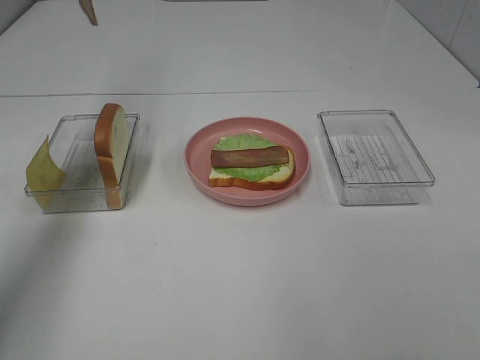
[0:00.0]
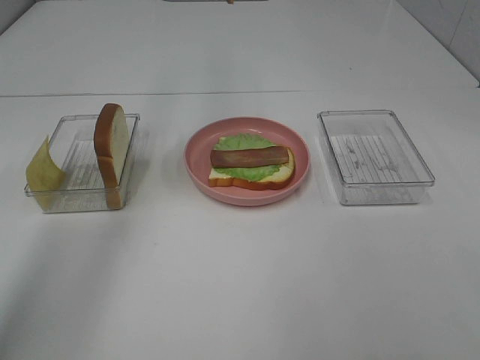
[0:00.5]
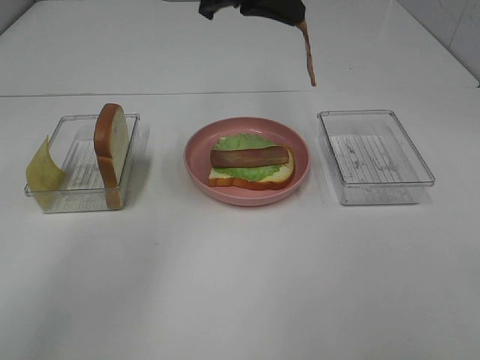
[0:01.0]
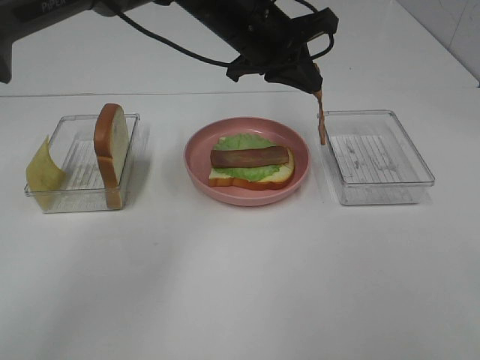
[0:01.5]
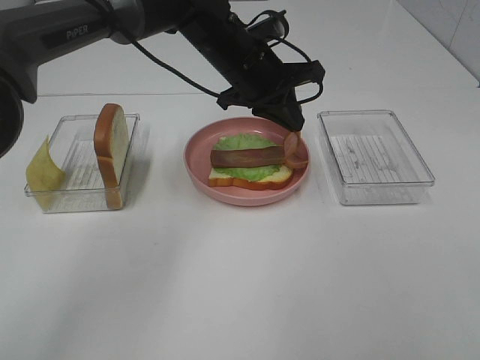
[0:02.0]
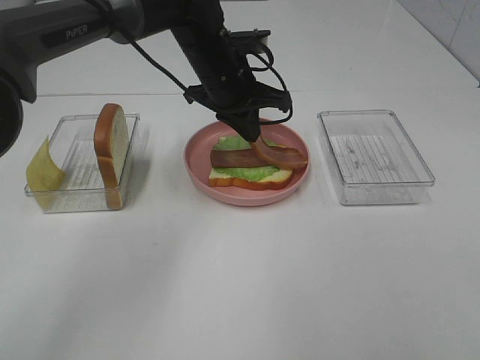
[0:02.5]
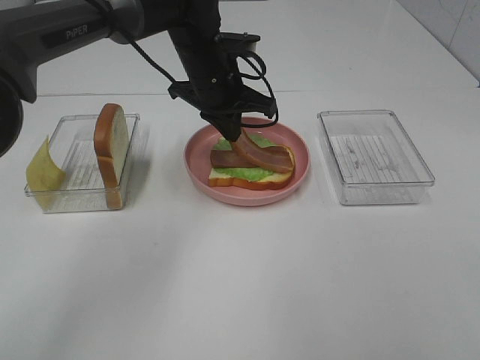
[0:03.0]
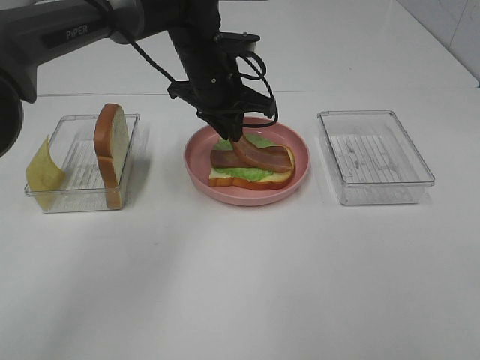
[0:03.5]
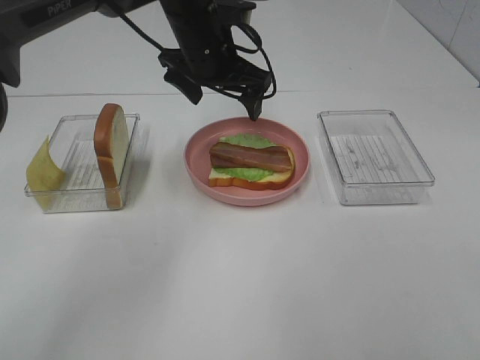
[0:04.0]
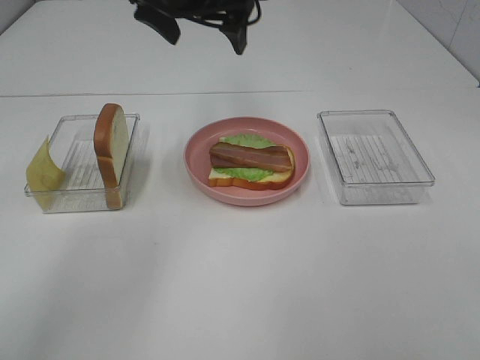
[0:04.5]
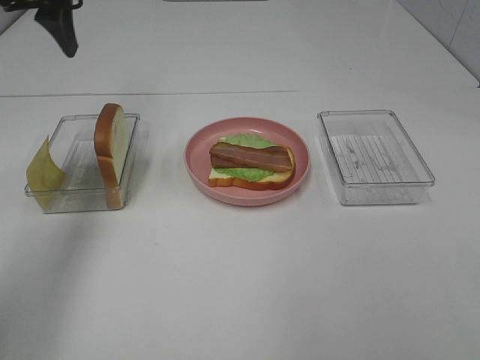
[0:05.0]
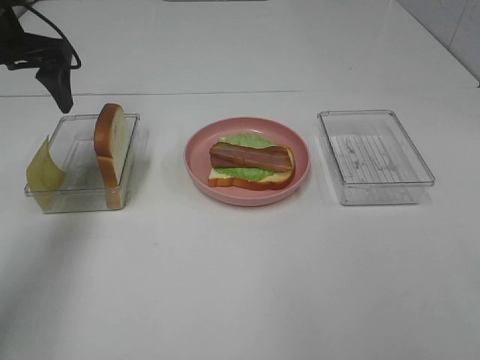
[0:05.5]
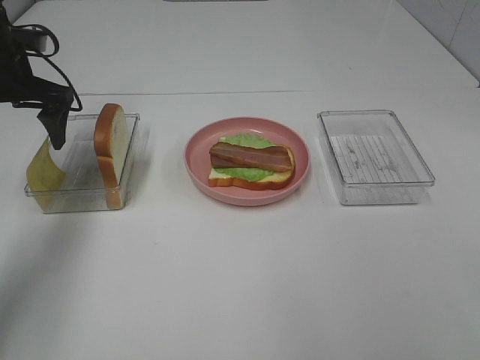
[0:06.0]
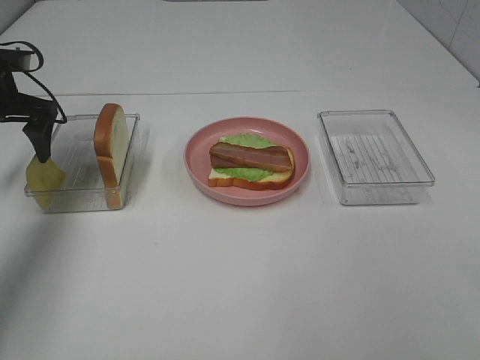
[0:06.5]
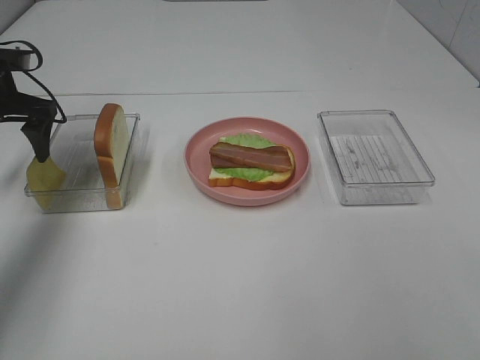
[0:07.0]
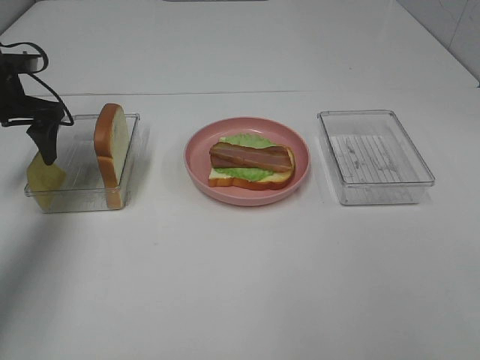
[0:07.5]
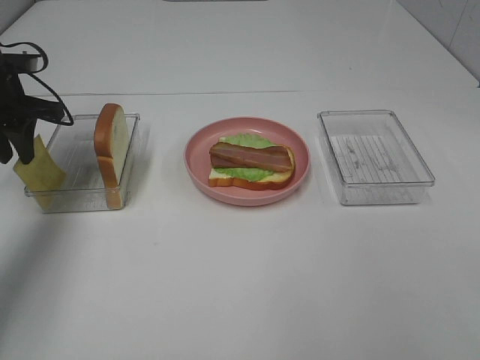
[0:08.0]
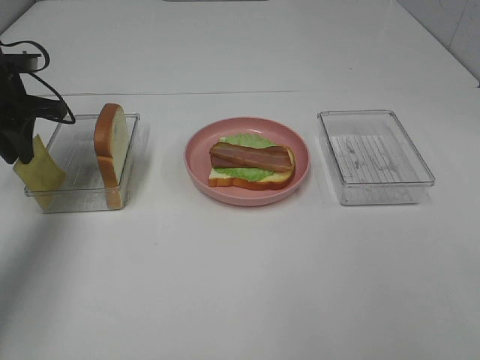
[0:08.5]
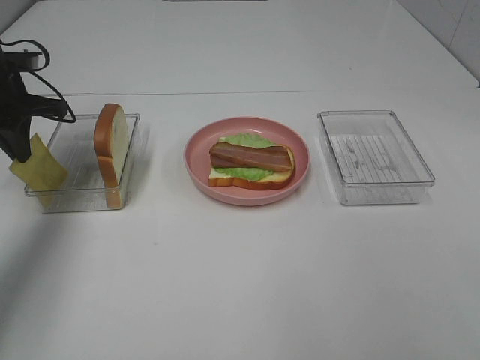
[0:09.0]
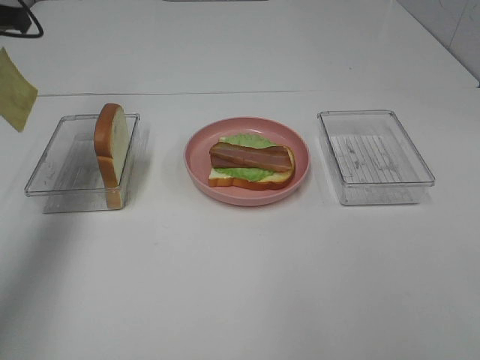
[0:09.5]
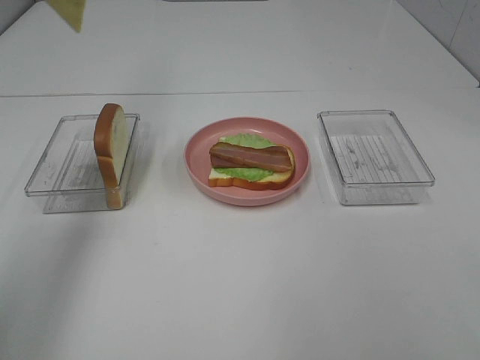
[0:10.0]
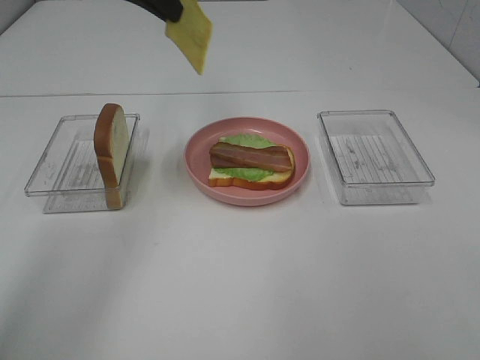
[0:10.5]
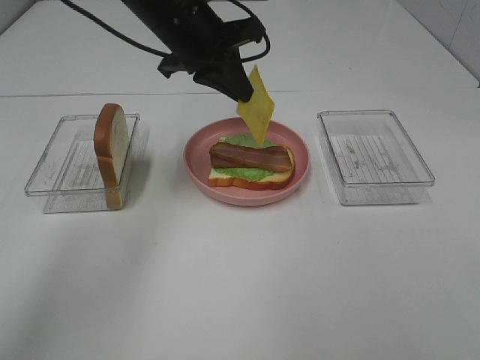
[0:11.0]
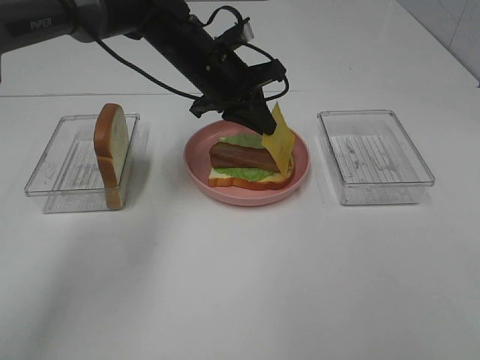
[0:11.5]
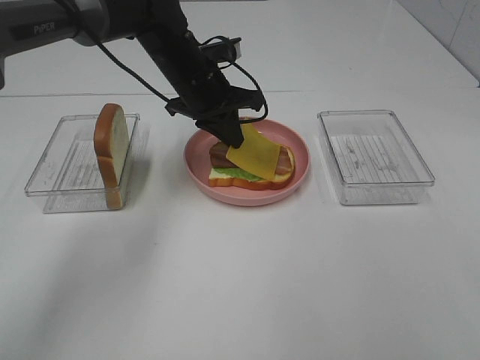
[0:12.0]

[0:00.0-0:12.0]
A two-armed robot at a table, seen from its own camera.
Task of the whole recording: Make sandwiches.
Step, 0:00.0 to 0:03.5: Left hand:place bacon on bacon.
Step, 0:04.0 to 0:09.0: Left hand:grab the cheese slice.
0:00.0 to 0:02.0: The left gripper moves to the right and downward, about 35 cm.
0:02.0 to 0:04.0: The left gripper shifts by about 5 cm, and opens up.
0:04.0 to 0:06.0: The left gripper goes about 25 cm to the left.
0:06.0 to 0:08.0: The left gripper closes its fingers.
0:08.0 to 0:10.0: The left gripper is displaced upward by approximately 20 cm.
0:10.0 to 0:12.0: The left gripper moves downward and to the right, about 30 cm.

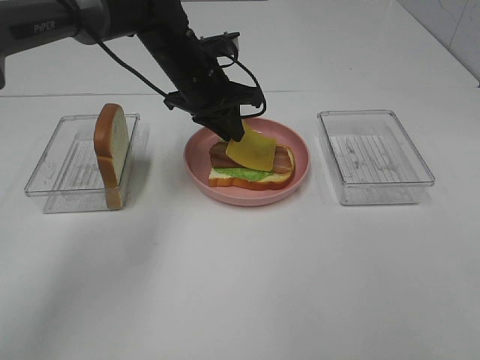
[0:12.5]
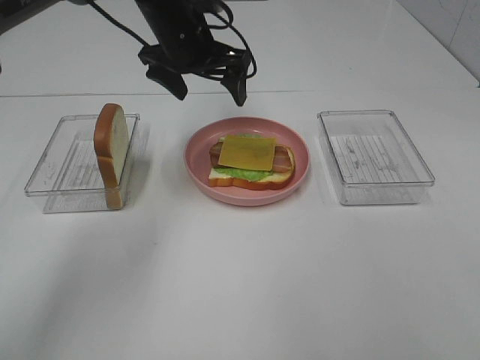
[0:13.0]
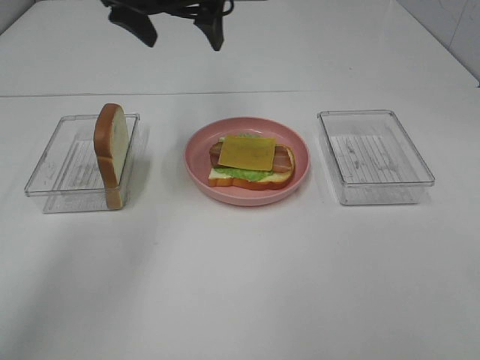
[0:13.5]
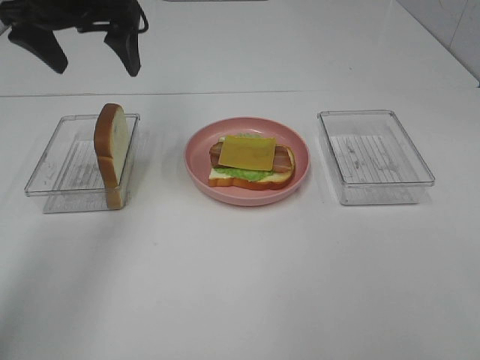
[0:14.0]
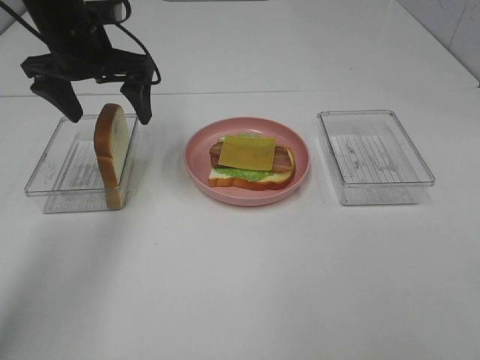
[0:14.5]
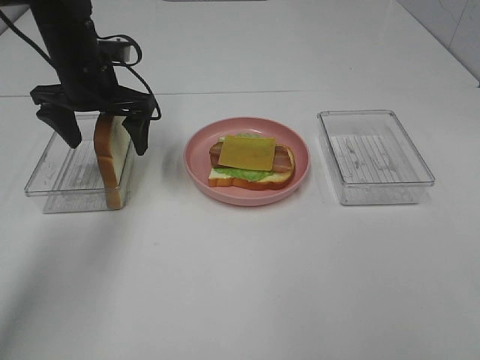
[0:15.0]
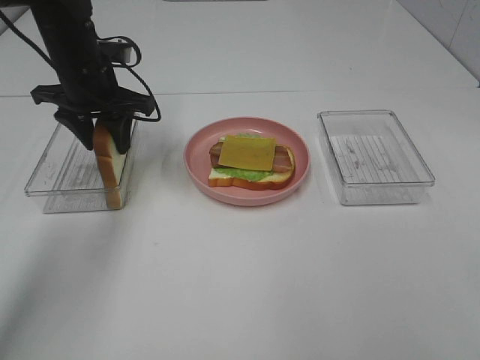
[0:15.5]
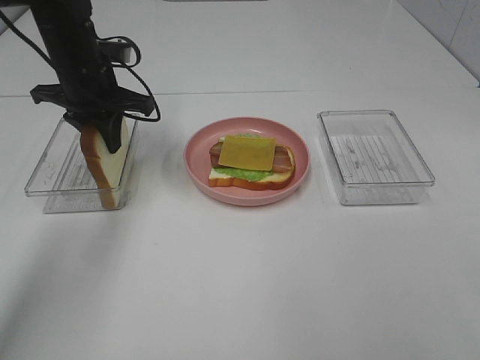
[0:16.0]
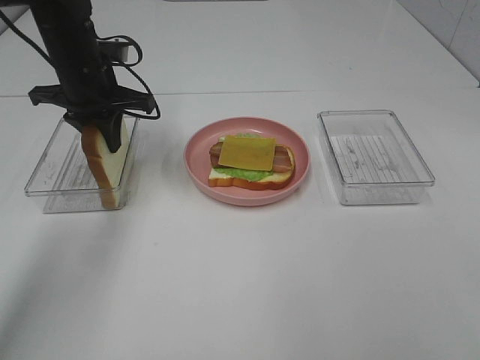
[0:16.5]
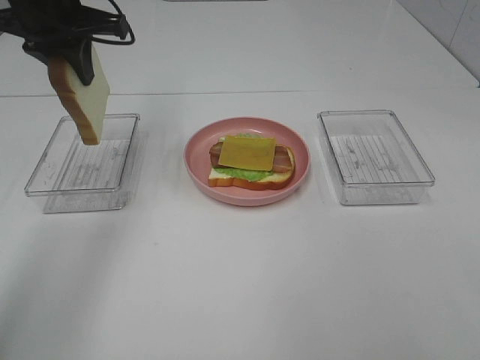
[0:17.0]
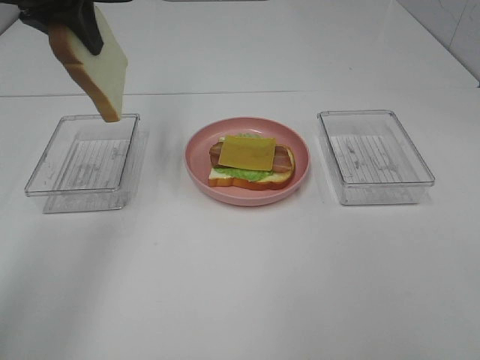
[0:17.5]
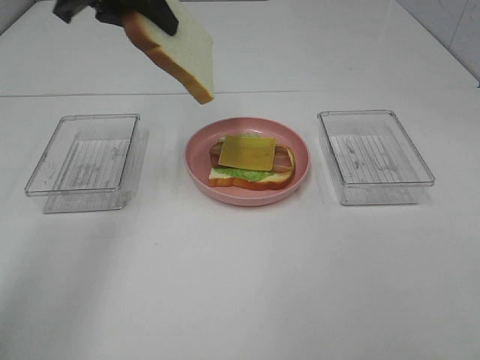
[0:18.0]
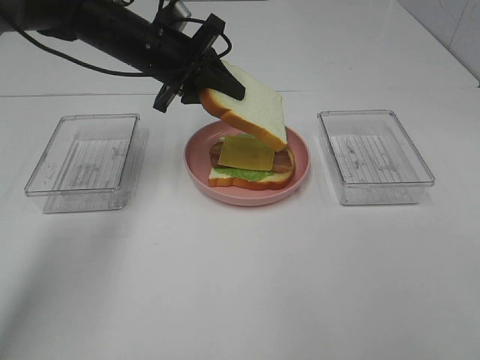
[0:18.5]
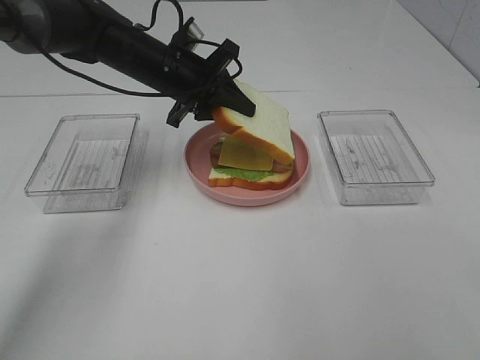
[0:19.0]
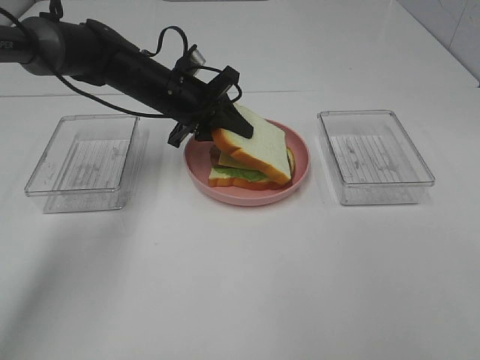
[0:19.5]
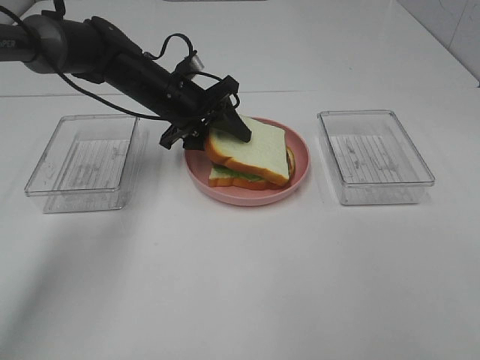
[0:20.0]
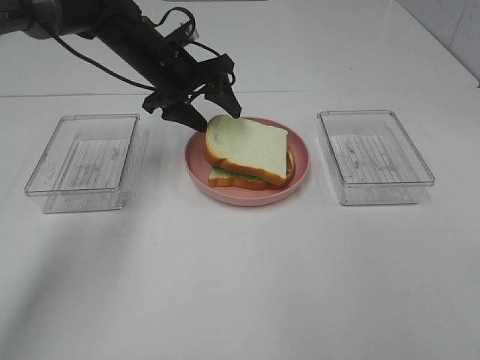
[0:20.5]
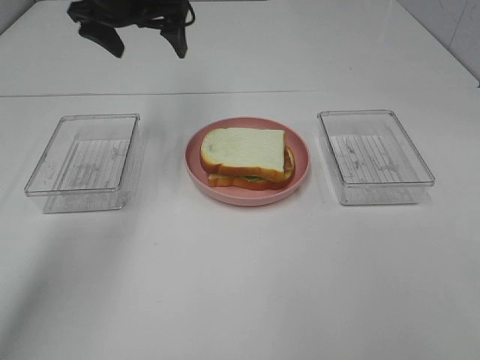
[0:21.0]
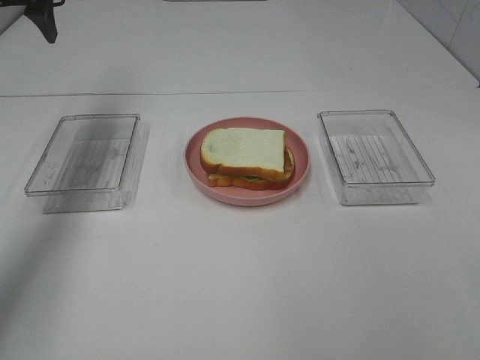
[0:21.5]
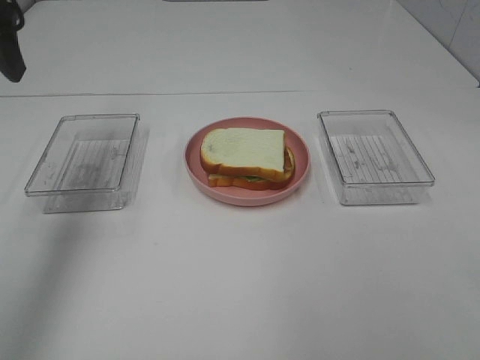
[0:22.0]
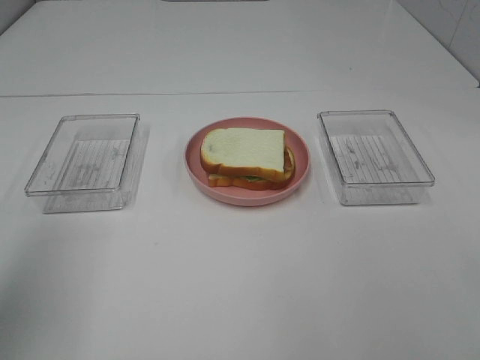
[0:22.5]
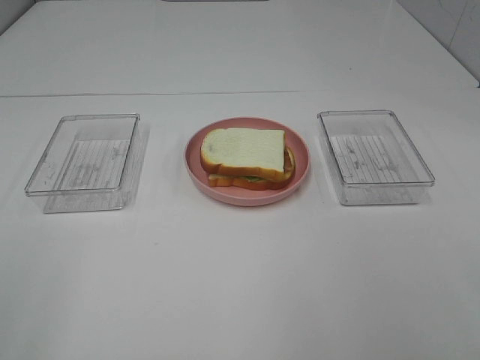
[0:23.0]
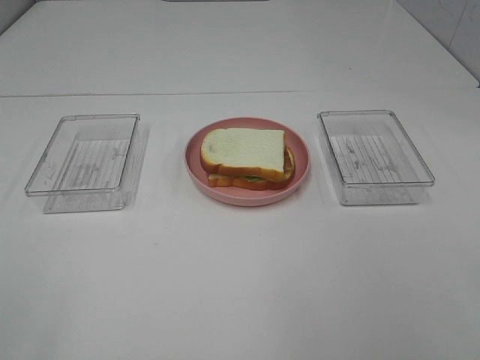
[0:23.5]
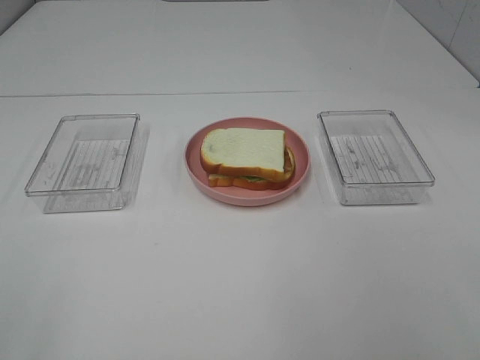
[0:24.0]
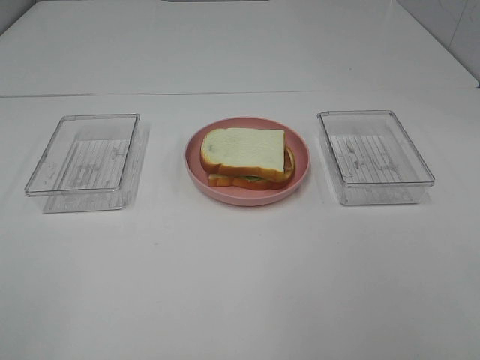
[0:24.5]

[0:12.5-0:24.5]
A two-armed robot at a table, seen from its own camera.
Task of the whole recording: Make sandwiches.
Step, 0:13.0 to 0:16.0: Left hand:grab the bread slice.
Step, 0:16.5 to 0:20.5: Left hand:place the bread slice on the cheese slice.
0:12.5 to 0:14.5: The left gripper travels to the left and upward by roughly 15 cm, and opens its fingers.
0:14.5 to 0:16.5: The left gripper closes.
0:16.5 to 0:18.5: The left gripper heads to the right, covering approximately 5 cm, and reaches some 15 cm upward, then returns.
0:18.5 to 0:20.5: The left gripper opens.
0:20.5 to 0:22.5: The left gripper travels backward, to the left and upward by approximately 40 cm.
0:22.5 to 0:24.5: The left gripper goes some 15 cm backward.

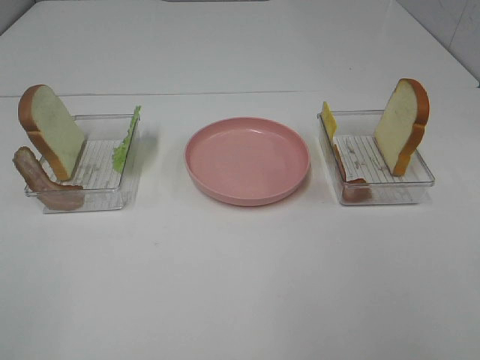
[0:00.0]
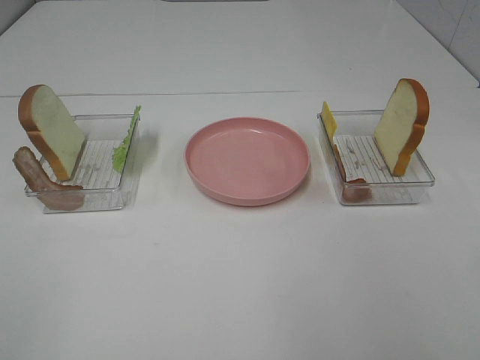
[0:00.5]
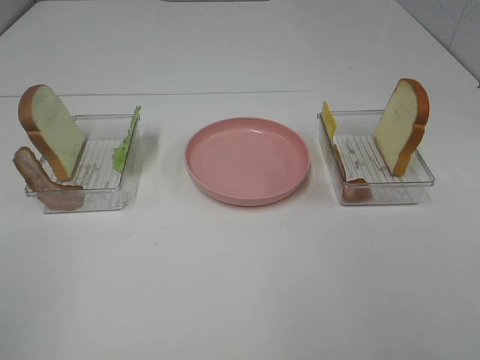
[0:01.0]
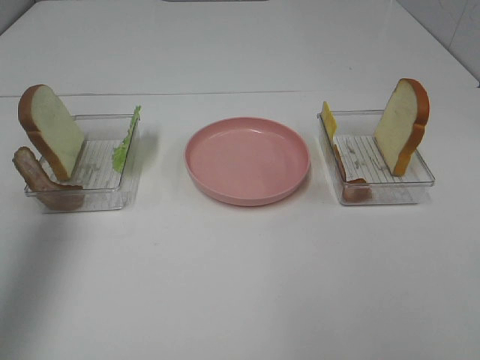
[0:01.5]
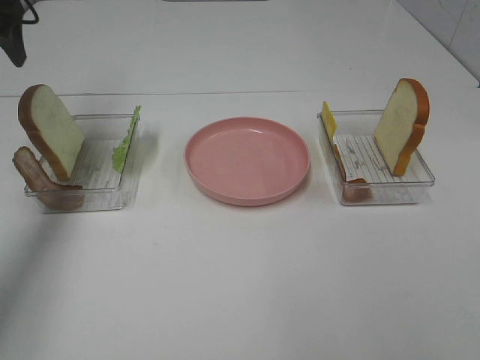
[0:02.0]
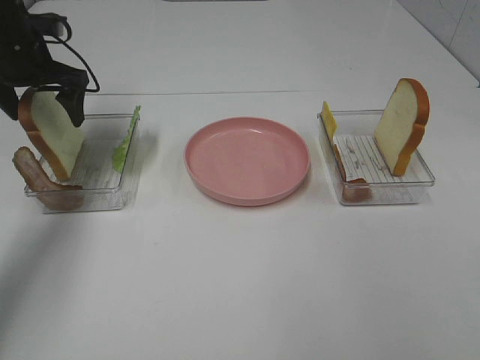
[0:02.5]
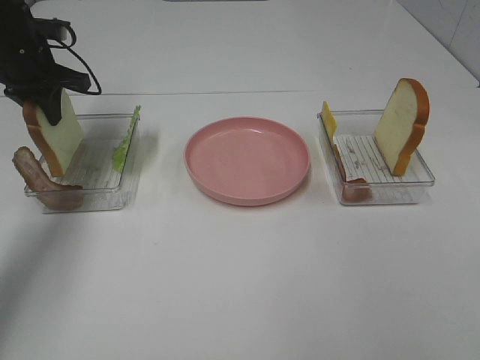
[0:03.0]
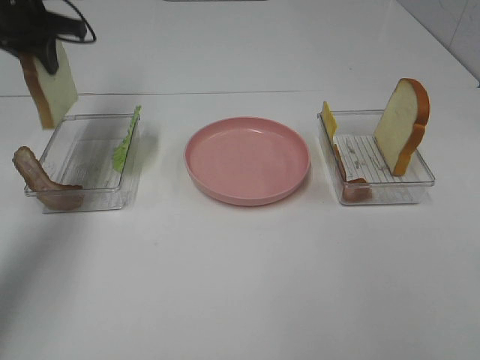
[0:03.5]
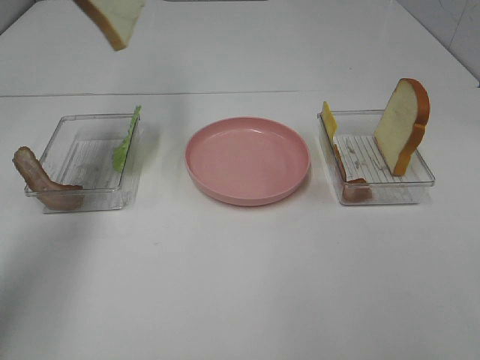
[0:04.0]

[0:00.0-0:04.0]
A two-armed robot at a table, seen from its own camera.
Task of the whole recording: Make sandwiches.
Step, 0:00.0 to 0:02.5: Left hand:grab the bread slice.
0:00.0 to 0:02.0: The left gripper moves forward, some 50 cm.
0:02.0 to 0:04.0: The left gripper travels to the right and upward by roughly 10 cm, and closes.
